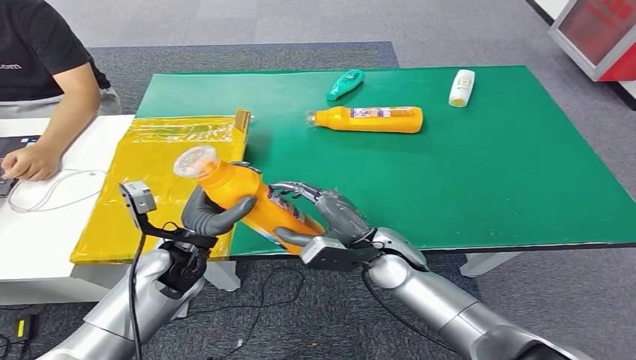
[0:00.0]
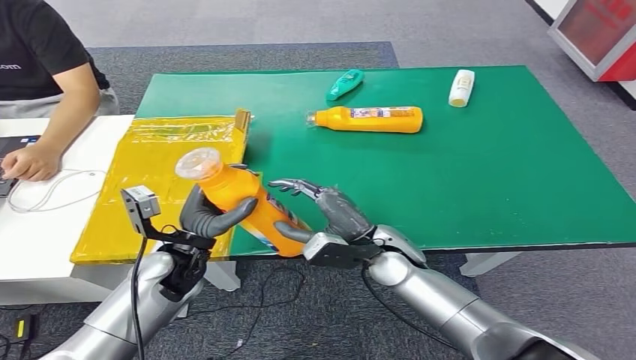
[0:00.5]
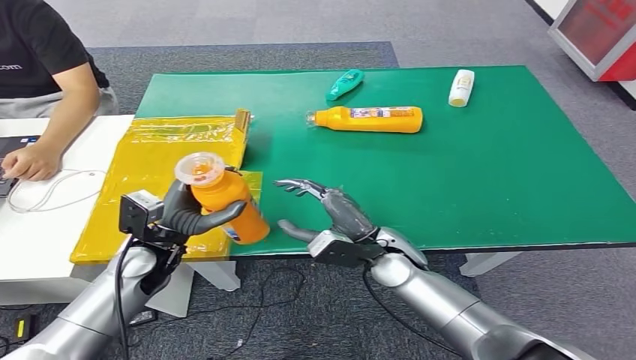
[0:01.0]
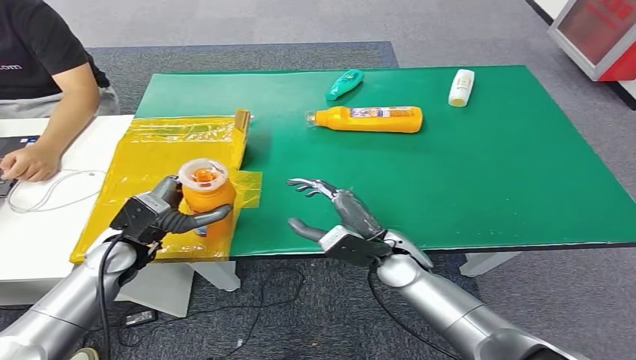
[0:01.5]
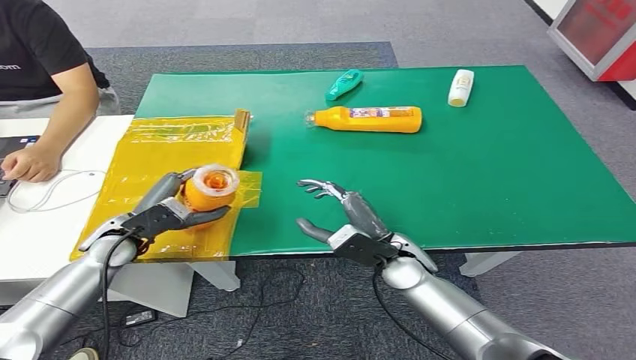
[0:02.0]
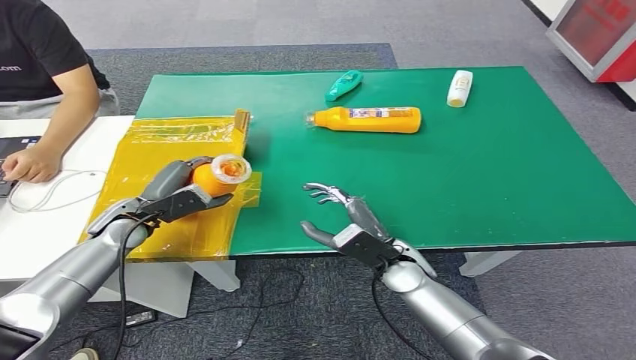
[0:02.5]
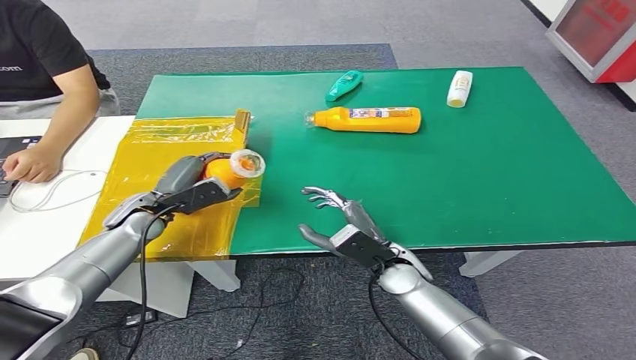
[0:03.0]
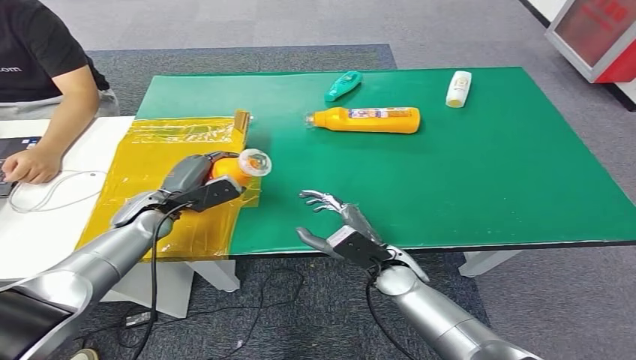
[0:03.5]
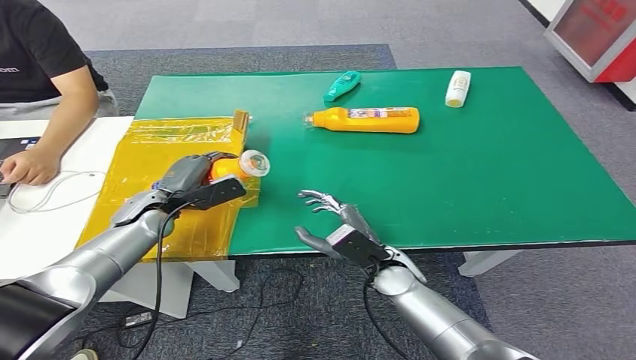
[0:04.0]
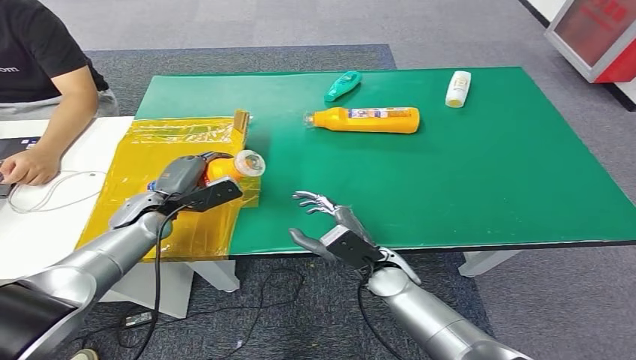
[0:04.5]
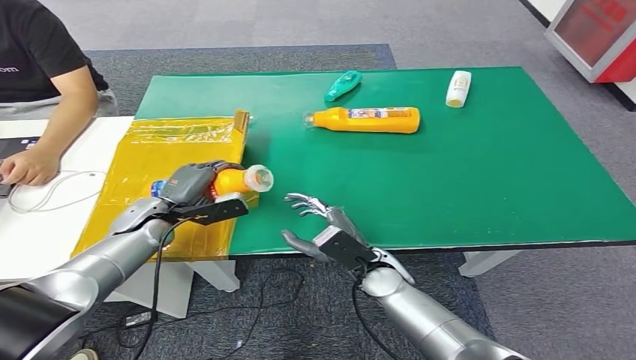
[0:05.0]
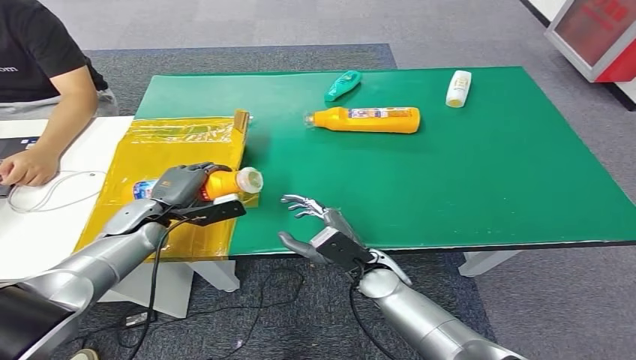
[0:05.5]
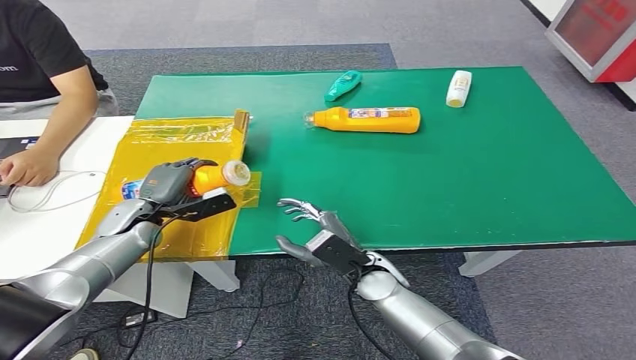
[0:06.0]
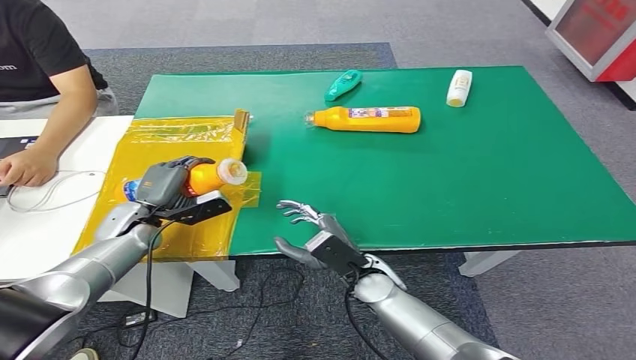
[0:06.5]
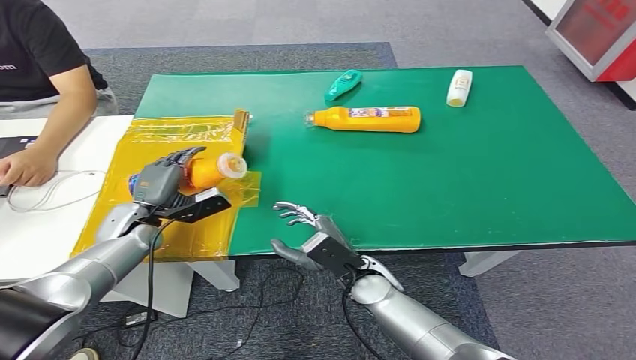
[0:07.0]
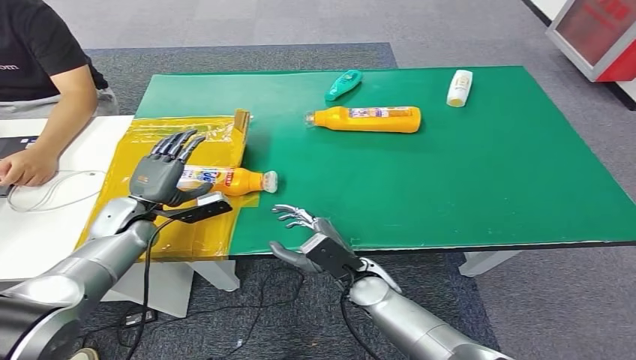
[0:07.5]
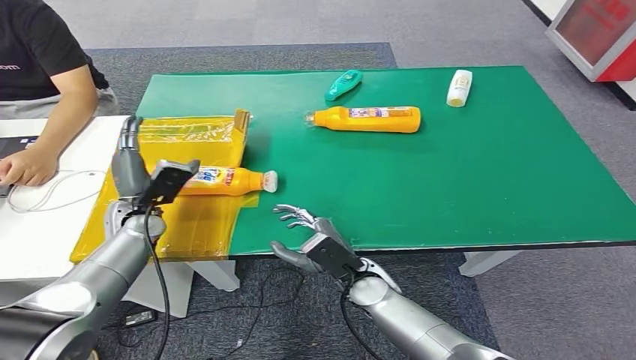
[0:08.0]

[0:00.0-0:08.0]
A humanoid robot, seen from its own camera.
Step, 0:00.0 to 0:07.5: Turn the bottle to the front side.
0:00.0 to 0:02.0: The left hand heads to the left, covering some 10 cm.
0:02.0 to 0:04.0: The left hand shifts roughly 5 cm forward.
0:04.0 to 0:06.0: The hands stay close to where they were, moving slightly.

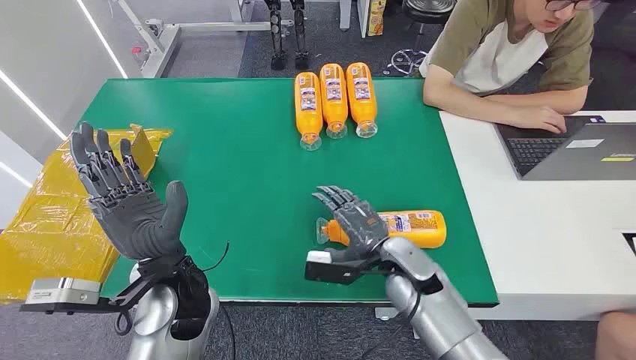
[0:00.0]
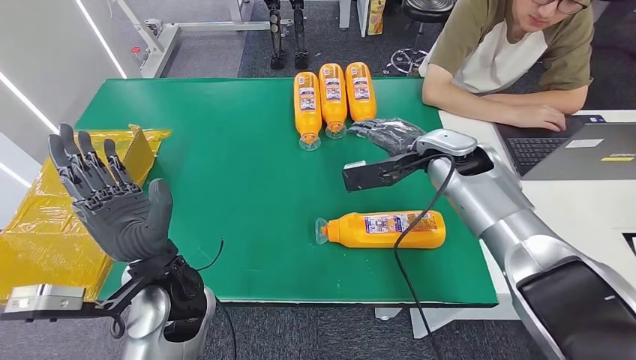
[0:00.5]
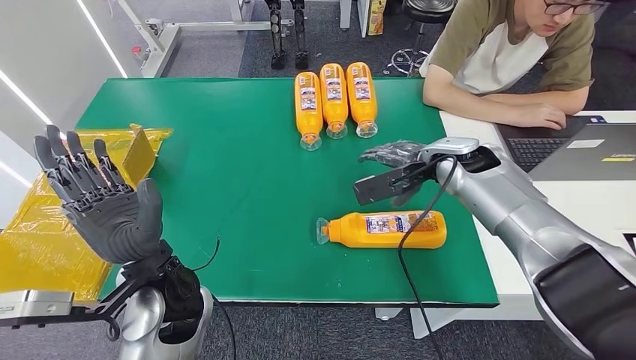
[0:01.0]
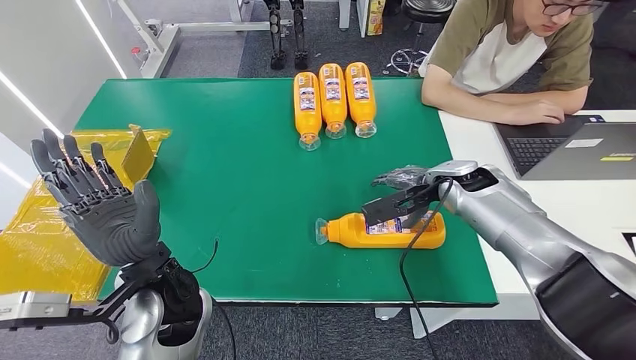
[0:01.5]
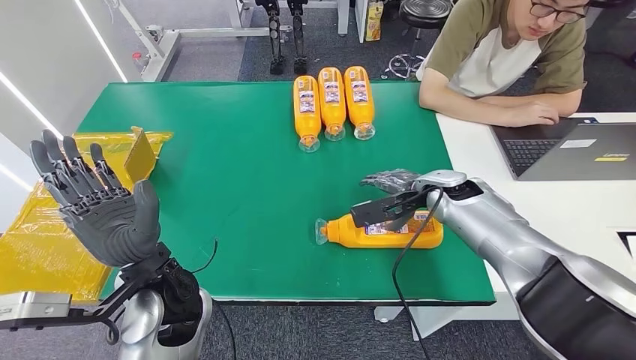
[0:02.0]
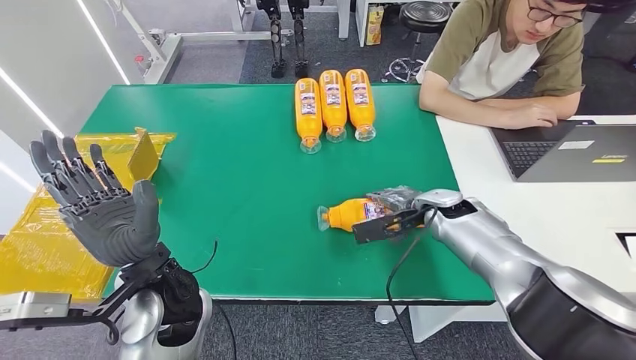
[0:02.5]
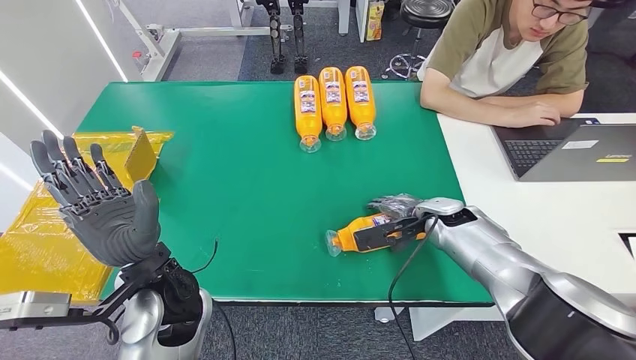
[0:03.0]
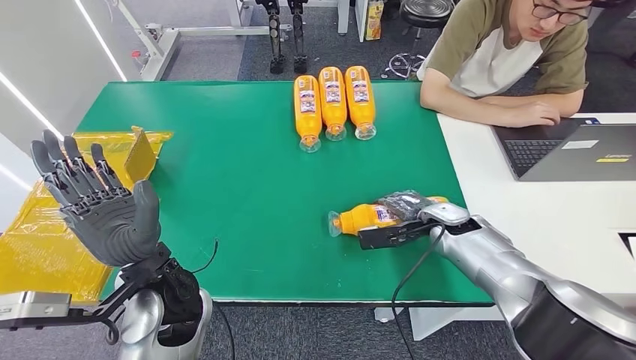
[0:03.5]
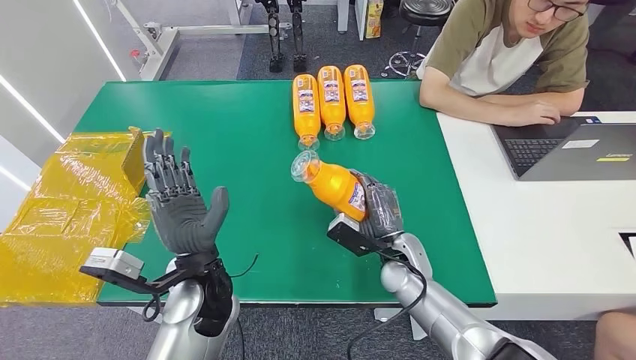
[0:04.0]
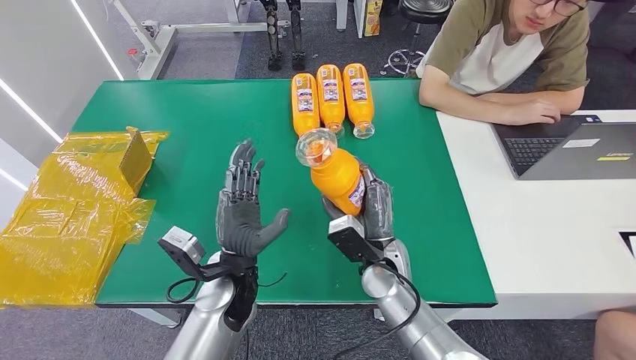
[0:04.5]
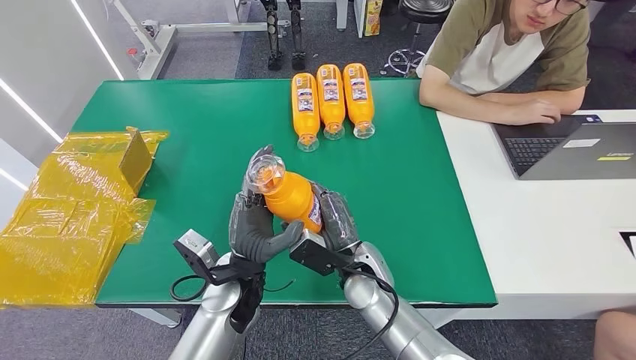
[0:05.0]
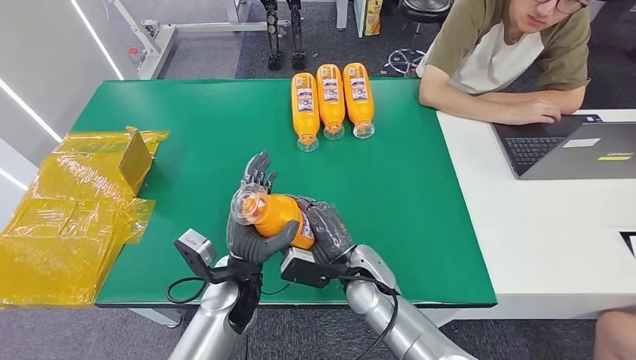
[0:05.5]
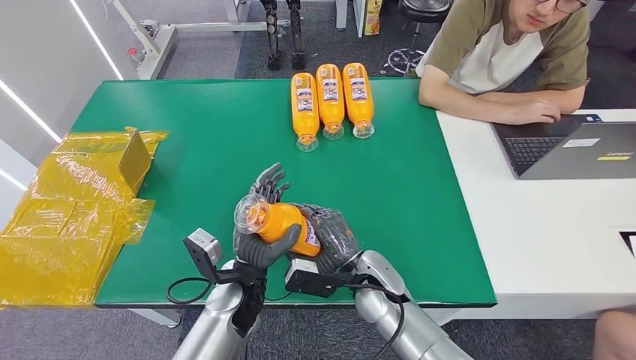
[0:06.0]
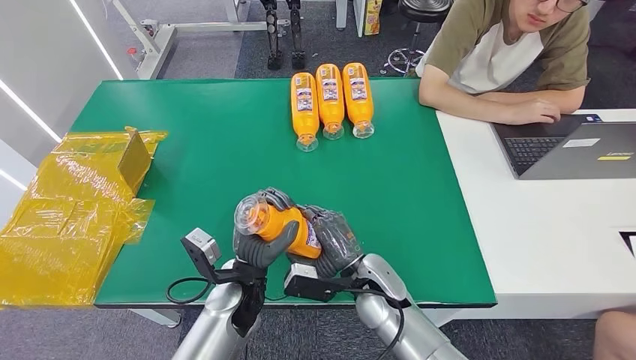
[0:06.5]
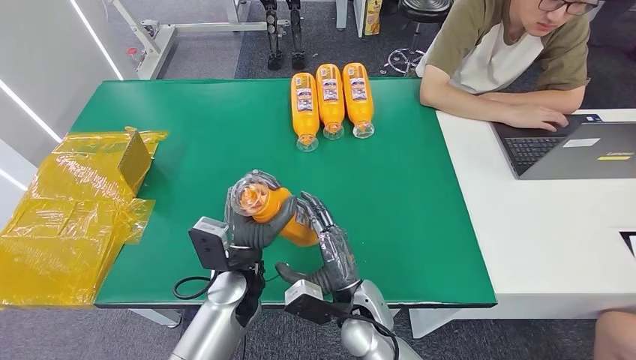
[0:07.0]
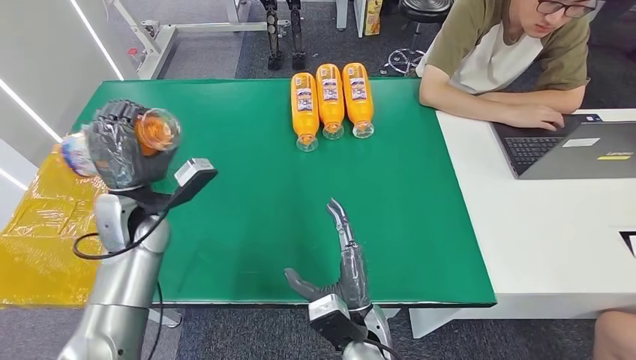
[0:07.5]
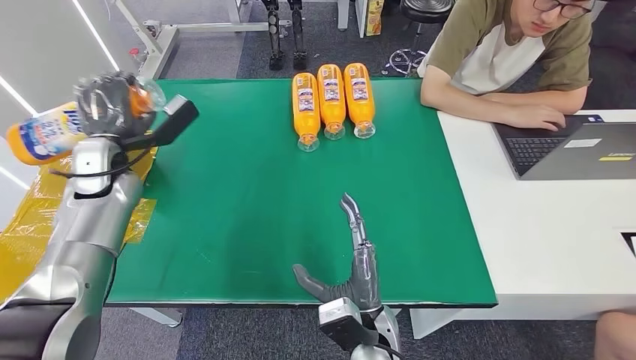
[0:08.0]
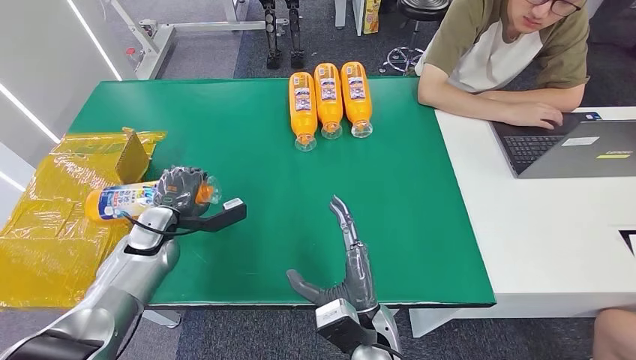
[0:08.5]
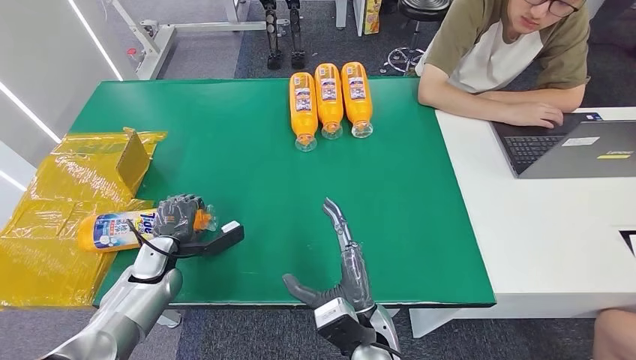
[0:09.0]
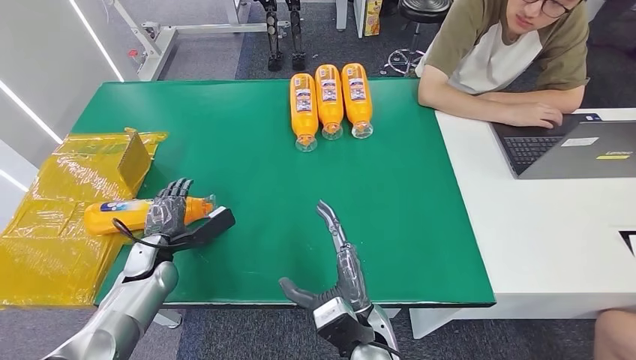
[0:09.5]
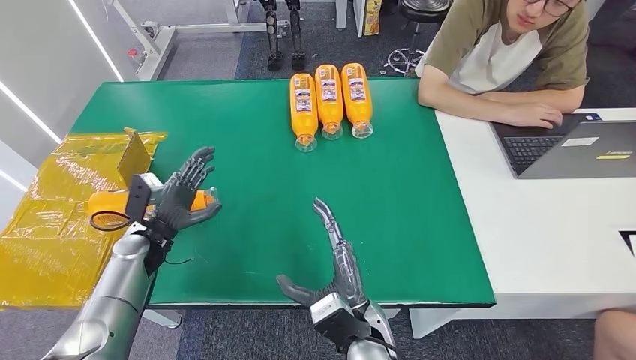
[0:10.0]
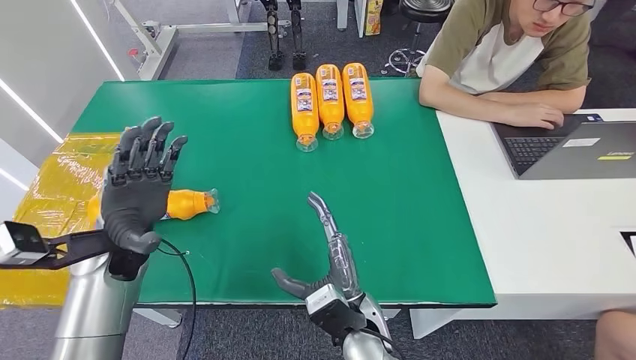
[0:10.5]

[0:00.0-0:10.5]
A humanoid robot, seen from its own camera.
Step, 0:00.0 to 0:04.0: Pick up the bottle from the table.
Step, 0:04.5 to 0:10.5: Turn the bottle to the front side.
0:06.5 to 0:08.5: The left hand shifts about 25 cm to the left and forward. Meanwhile the right hand goes approximately 10 cm backward.
0:08.5 to 0:10.5: The left hand moves upward, some 10 cm.
